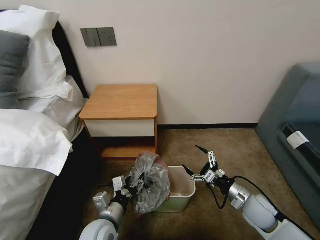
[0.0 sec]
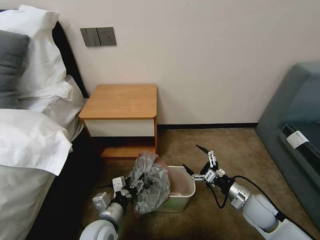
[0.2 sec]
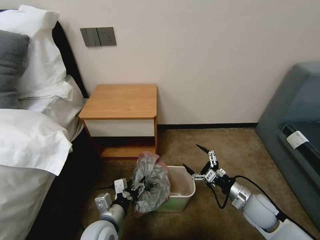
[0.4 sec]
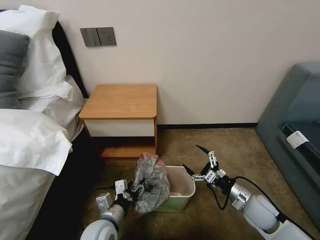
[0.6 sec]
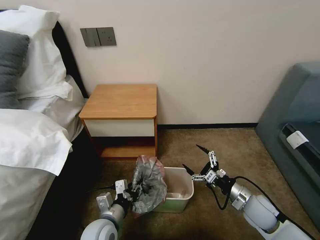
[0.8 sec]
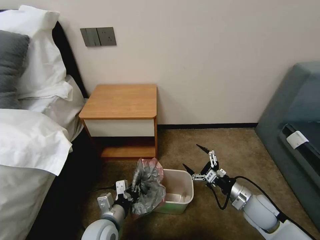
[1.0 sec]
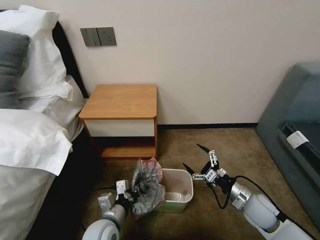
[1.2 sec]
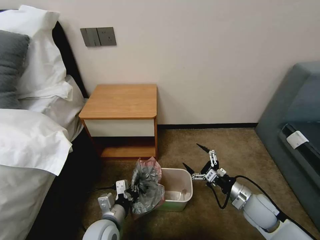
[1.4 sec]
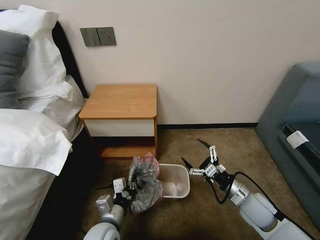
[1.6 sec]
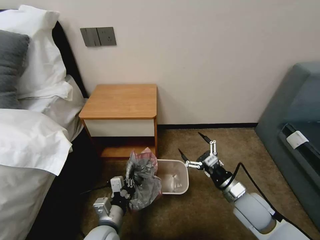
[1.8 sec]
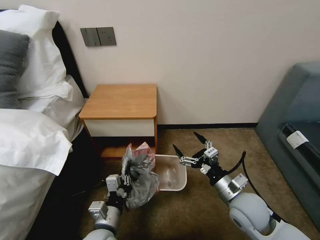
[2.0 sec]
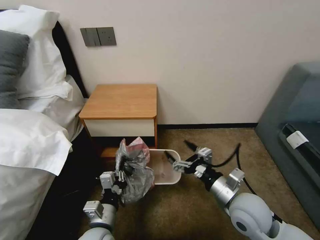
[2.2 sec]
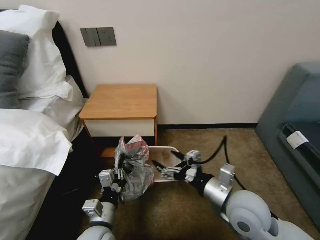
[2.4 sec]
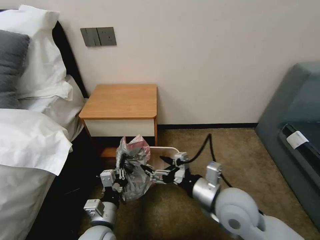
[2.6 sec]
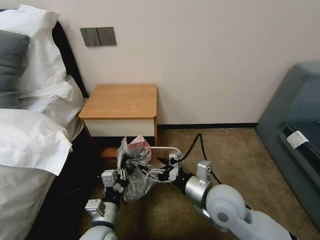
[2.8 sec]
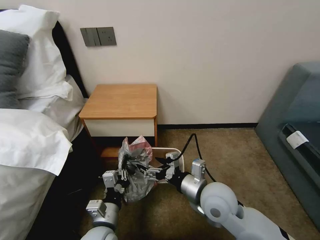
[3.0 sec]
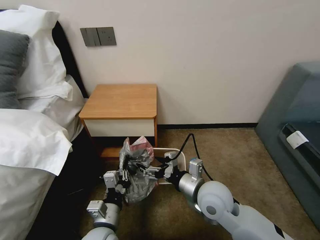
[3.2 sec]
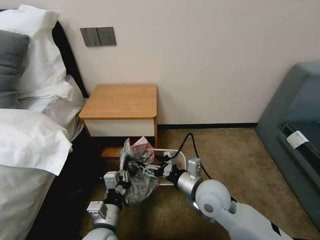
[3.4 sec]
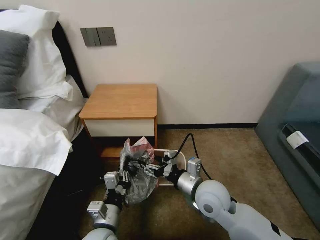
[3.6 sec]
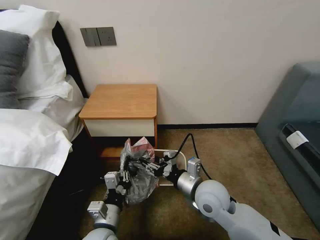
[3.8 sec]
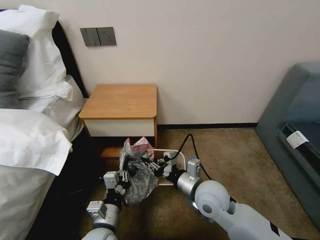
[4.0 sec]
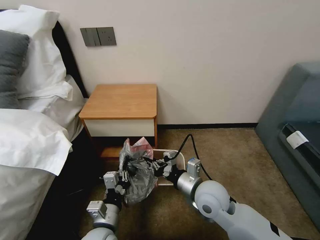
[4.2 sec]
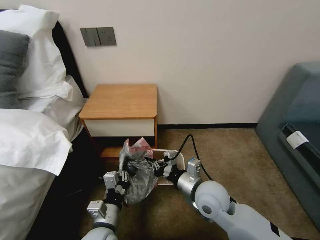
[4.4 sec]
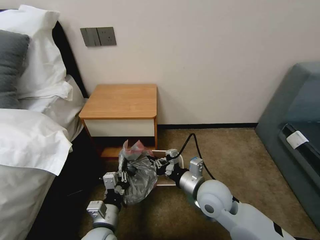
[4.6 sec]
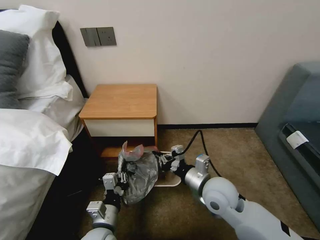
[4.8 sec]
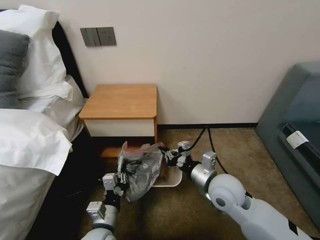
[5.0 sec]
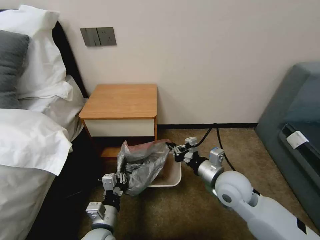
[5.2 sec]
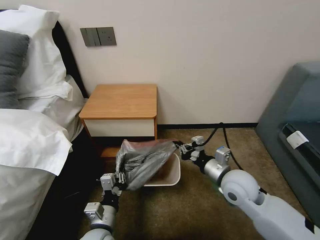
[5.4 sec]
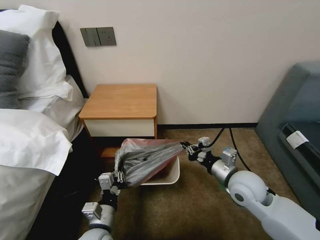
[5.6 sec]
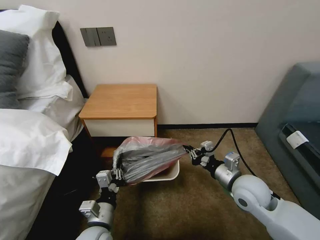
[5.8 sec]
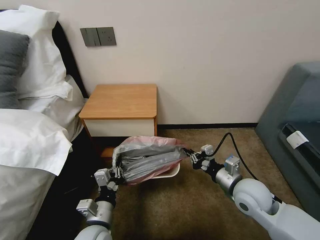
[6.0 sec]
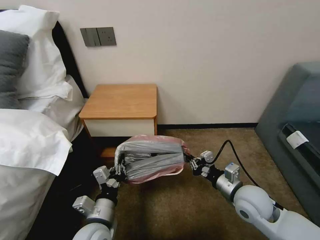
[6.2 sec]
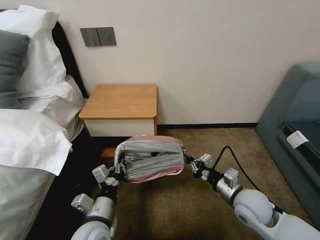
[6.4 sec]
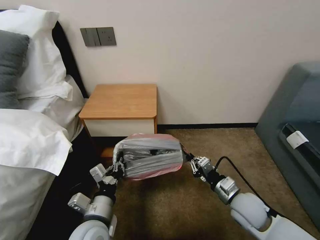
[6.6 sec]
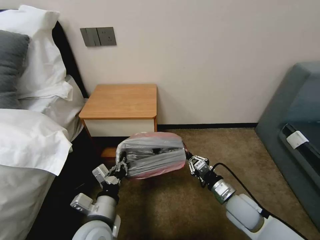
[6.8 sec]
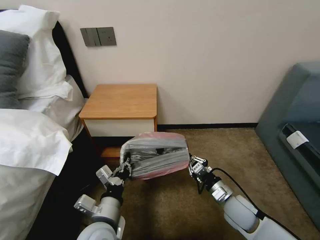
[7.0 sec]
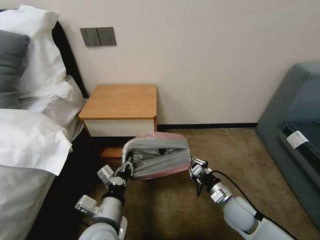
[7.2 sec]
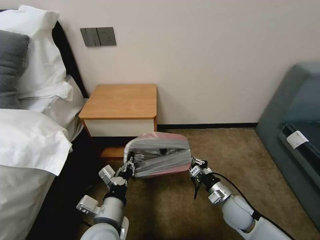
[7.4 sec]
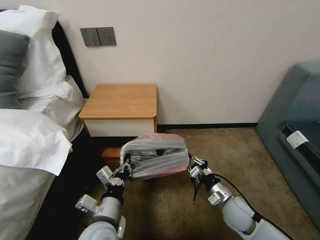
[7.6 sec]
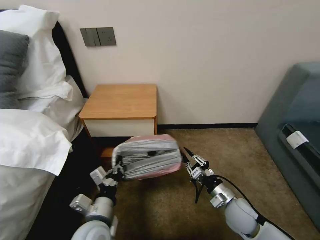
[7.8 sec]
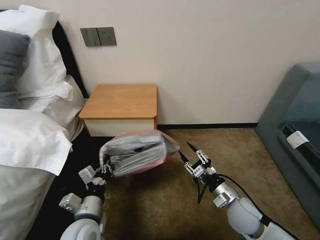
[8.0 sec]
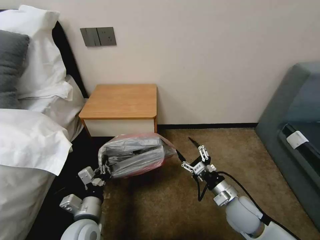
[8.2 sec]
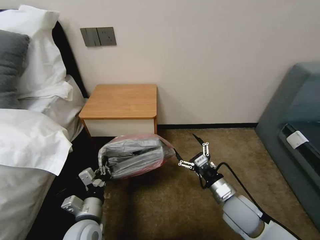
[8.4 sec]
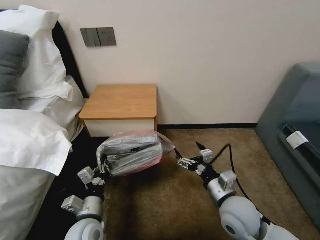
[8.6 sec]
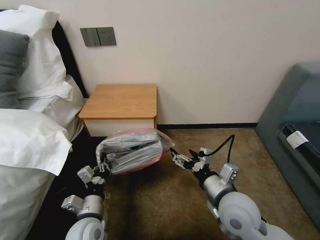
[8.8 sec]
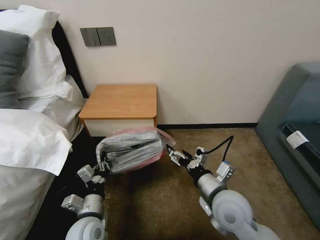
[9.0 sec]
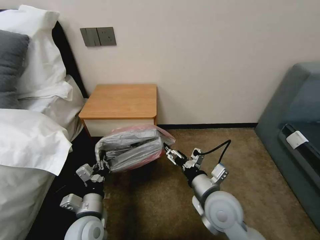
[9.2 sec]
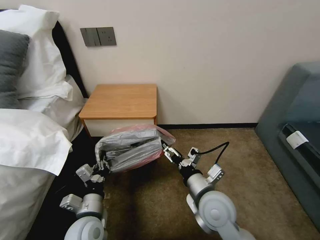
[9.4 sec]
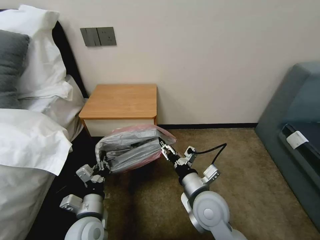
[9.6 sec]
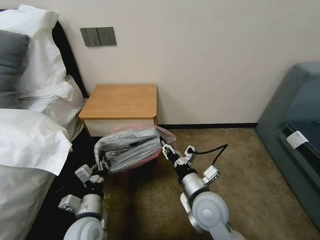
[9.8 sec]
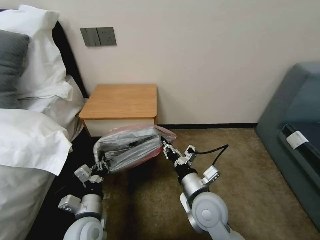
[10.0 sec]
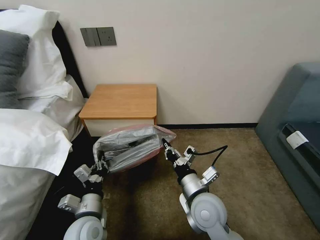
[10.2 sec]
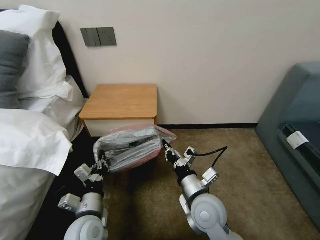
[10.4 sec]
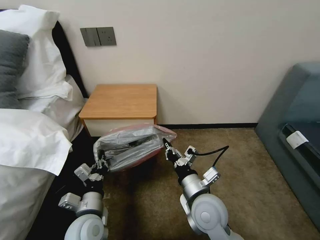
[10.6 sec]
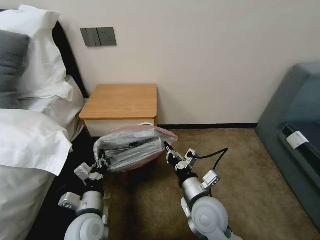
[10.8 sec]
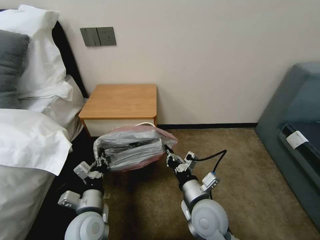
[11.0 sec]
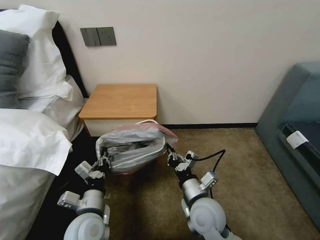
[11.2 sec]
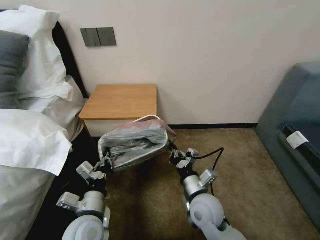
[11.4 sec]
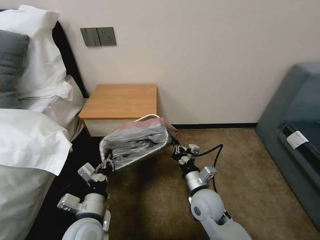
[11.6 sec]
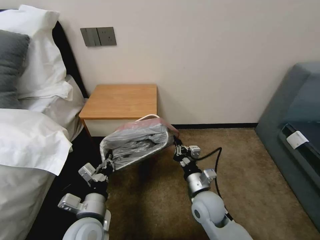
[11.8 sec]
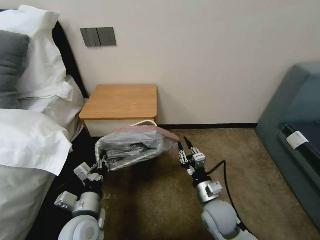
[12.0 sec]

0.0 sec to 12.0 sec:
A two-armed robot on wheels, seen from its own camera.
Task of the whole recording: Pick up the garbage bag from the table and place it over the trash can.
0.0 sec to 1.6 sec: The left gripper closes its fingers.
1.6 sec to 3.0 sec: The right gripper heads to the left and upward, covering roughly 20 cm.
3.0 sec to 4.4 sec: The right gripper closes its fingers.
4.4 sec to 6.0 sec: The right gripper heads to the right, covering roughly 10 cm.
6.0 sec to 7.6 sec: The right gripper is displaced downward by roughly 10 cm. The left gripper shifts by some 5 cm.
7.6 sec to 9.0 sec: The left gripper goes about 5 cm to the left; the right gripper is displaced upward and to the left by roughly 15 cm, and opens.
9.0 sec to 10.4 sec: The right gripper moves to the left, roughly 5 cm, and closes its fingers.
10.4 sec to 12.0 sec: The right gripper shifts roughly 10 cm downward and to the right.

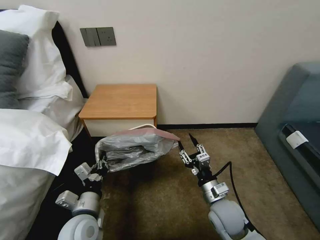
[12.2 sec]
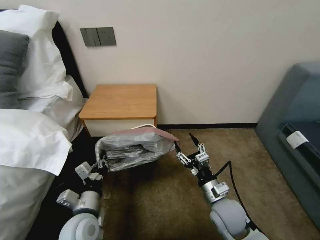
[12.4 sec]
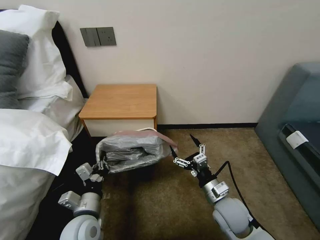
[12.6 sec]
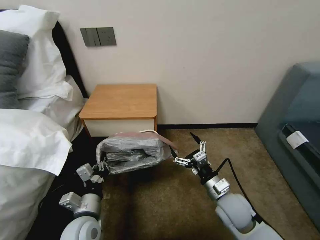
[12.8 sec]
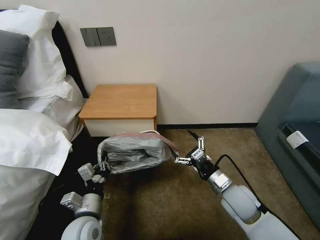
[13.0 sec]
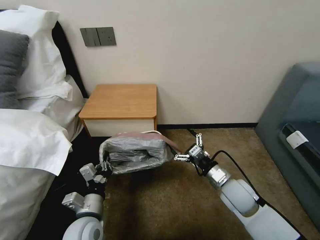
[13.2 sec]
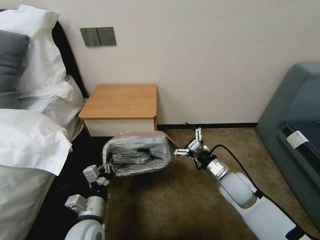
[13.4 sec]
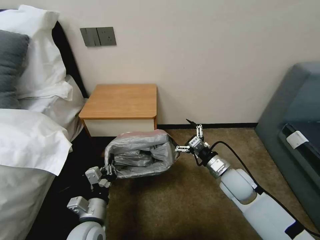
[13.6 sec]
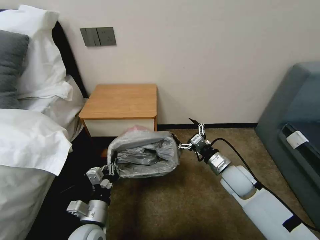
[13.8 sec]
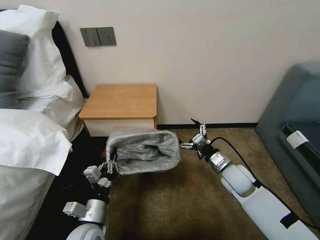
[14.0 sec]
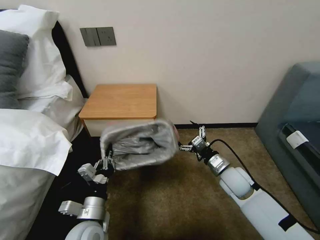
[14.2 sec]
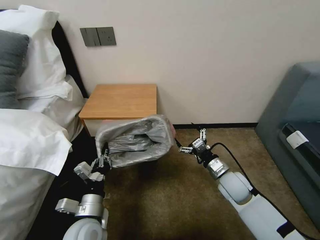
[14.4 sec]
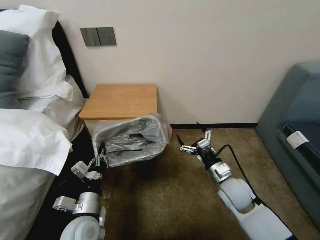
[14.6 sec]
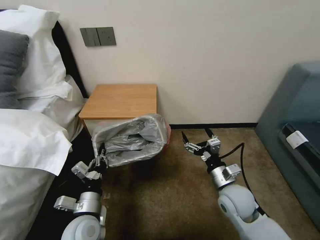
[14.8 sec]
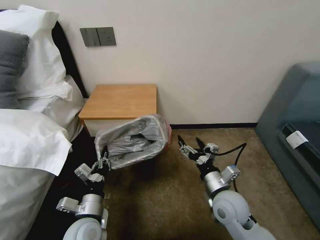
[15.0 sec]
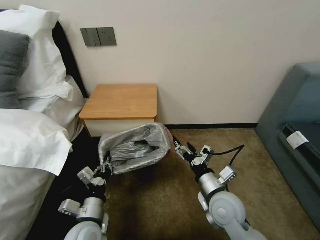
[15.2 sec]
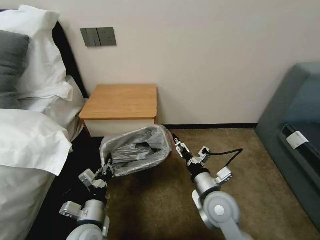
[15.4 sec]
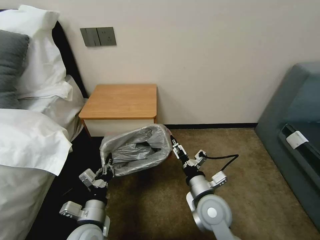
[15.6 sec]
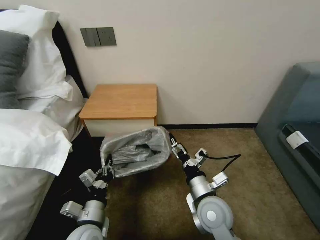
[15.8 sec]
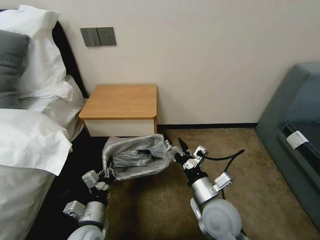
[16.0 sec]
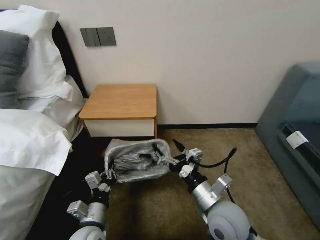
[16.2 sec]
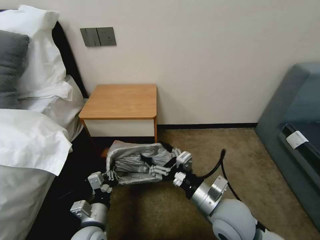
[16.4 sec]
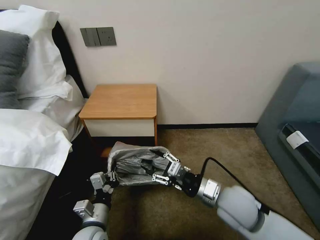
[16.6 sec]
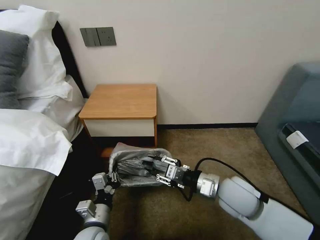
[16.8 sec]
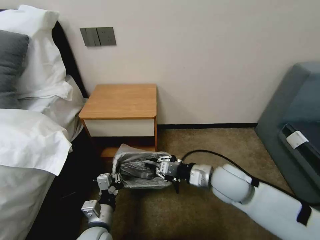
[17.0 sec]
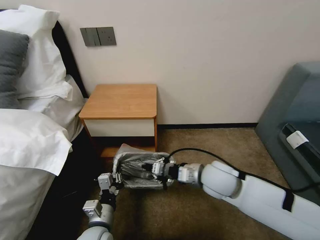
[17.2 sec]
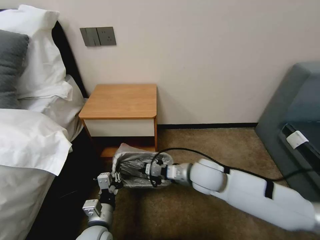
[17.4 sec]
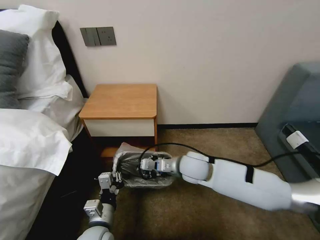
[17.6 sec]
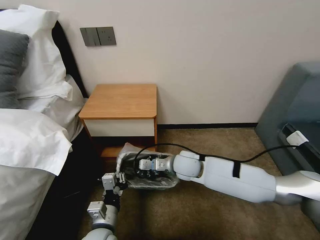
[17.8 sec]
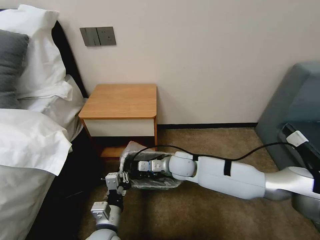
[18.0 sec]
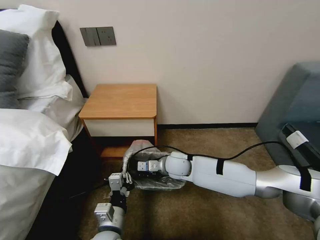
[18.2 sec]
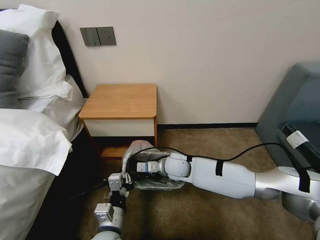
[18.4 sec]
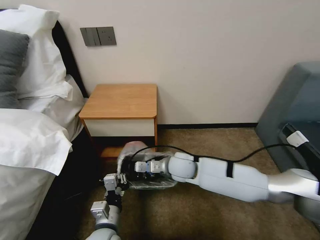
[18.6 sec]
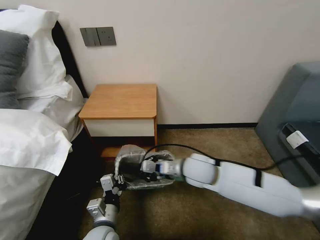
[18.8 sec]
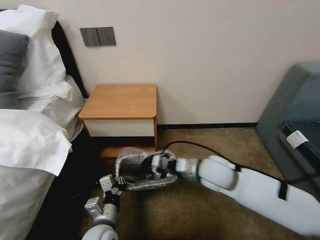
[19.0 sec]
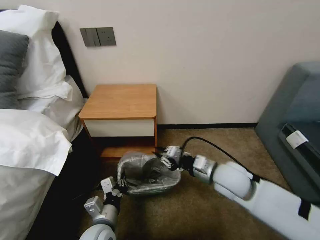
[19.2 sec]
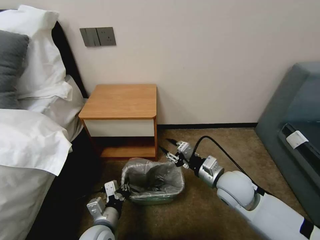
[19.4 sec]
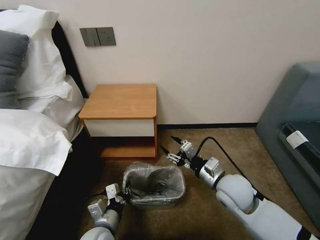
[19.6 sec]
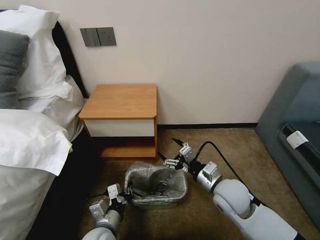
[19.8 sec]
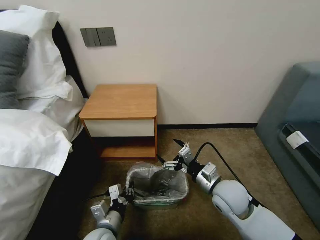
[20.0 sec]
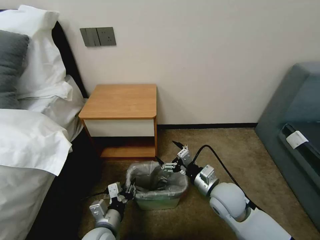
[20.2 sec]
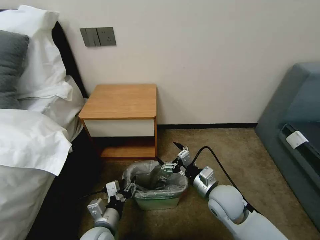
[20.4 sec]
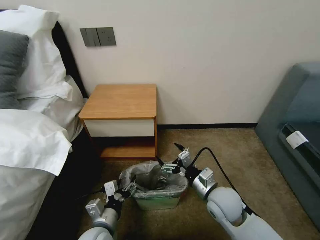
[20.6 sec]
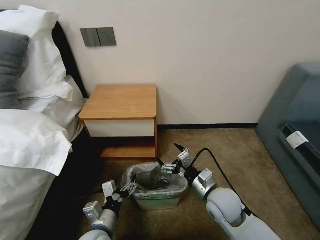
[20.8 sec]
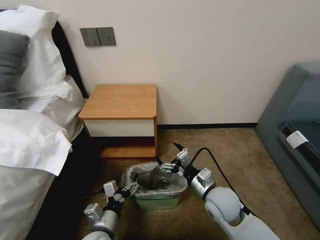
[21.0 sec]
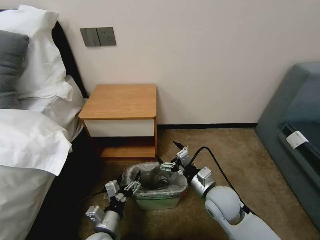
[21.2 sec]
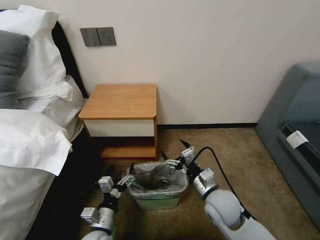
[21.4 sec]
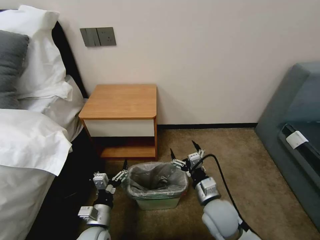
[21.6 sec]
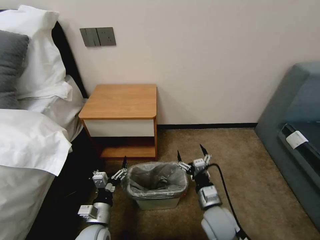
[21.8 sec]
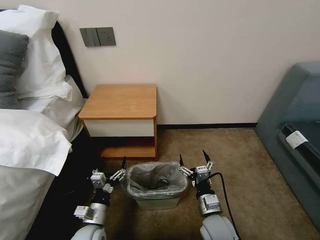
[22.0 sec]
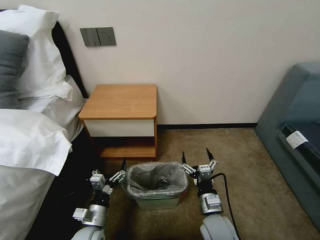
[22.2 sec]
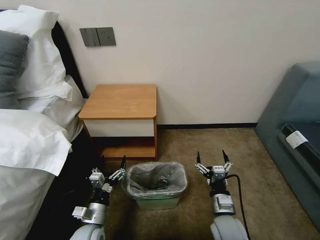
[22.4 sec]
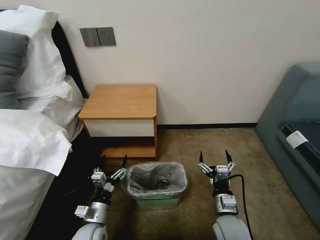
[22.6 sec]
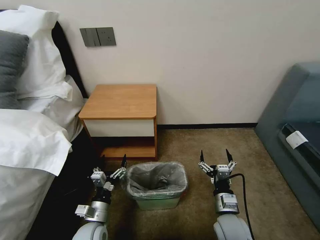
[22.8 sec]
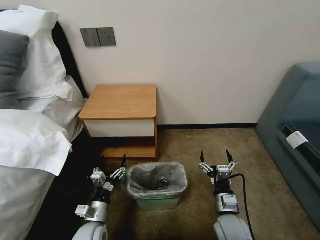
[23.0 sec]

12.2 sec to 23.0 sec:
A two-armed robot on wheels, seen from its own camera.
Task of the whole recording: Pick up the garbage bag from the table and place it over the trash can.
12.2 sec to 13.8 sec: The right gripper goes roughly 10 cm forward and to the right, and opens its fingers.
13.8 sec to 15.2 sec: The right gripper travels backward and to the left by some 10 cm.
15.2 sec to 16.8 sec: The right gripper shifts by some 5 cm, and closes up.
16.8 sec to 18.4 sec: The right gripper travels to the left, forward and downward by some 20 cm, and closes, while the left gripper ends up about 5 cm from where it was.
18.4 sec to 20.0 sec: The right gripper shifts some 20 cm to the right and backward, and opens its fingers.
20.0 sec to 21.4 sec: The left gripper opens up.
21.4 sec to 23.0 sec: The right gripper goes roughly 10 cm downward and backward.
